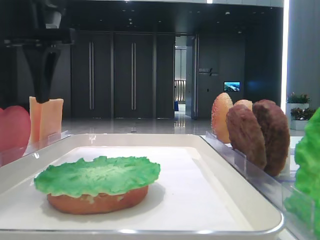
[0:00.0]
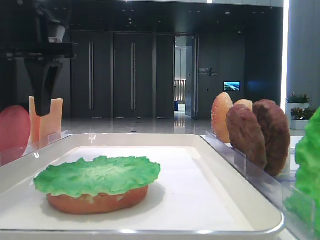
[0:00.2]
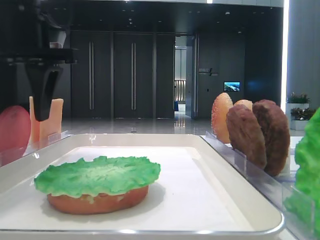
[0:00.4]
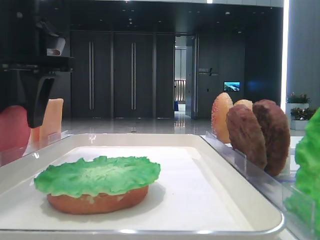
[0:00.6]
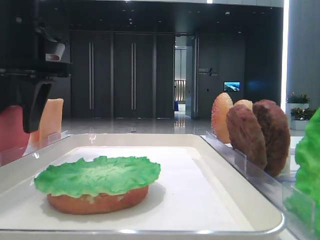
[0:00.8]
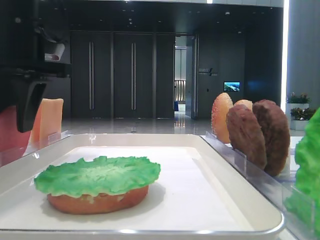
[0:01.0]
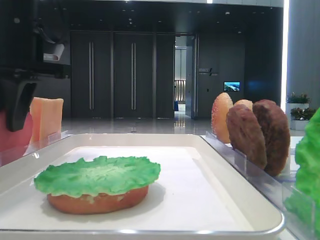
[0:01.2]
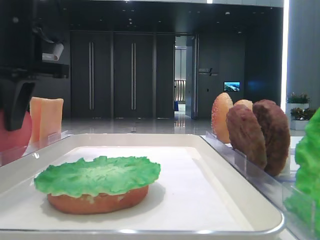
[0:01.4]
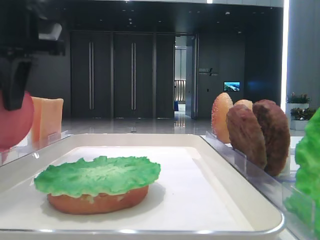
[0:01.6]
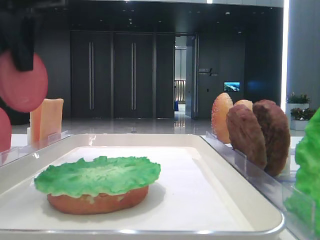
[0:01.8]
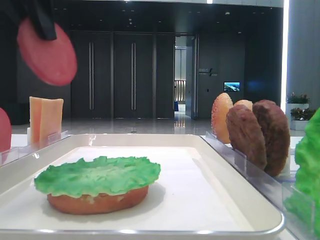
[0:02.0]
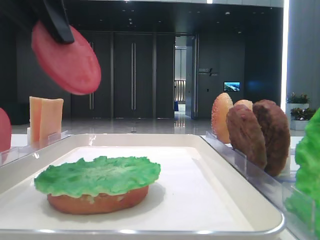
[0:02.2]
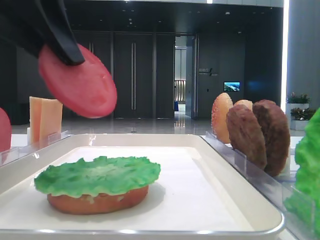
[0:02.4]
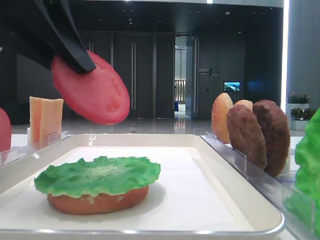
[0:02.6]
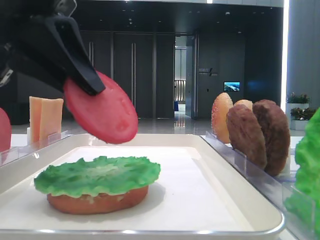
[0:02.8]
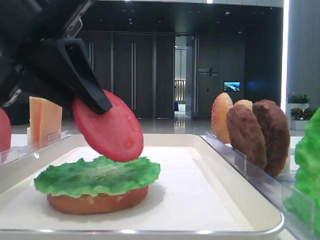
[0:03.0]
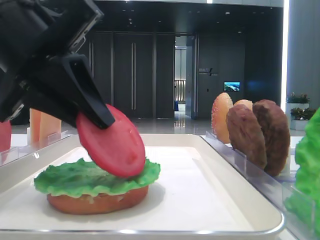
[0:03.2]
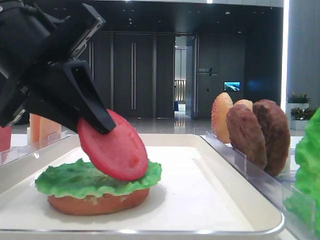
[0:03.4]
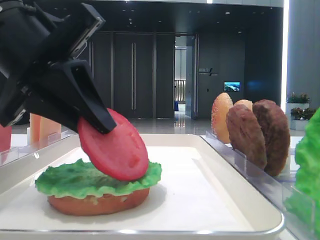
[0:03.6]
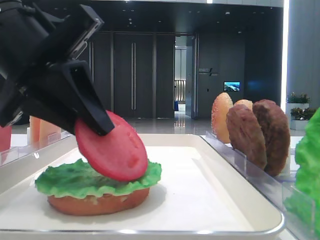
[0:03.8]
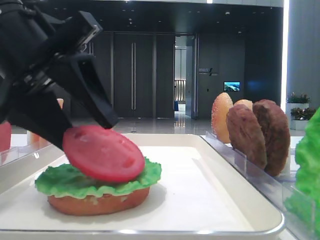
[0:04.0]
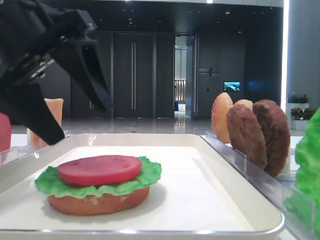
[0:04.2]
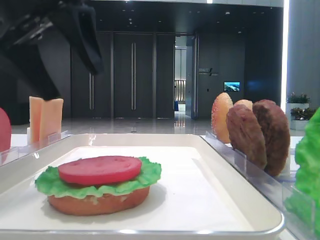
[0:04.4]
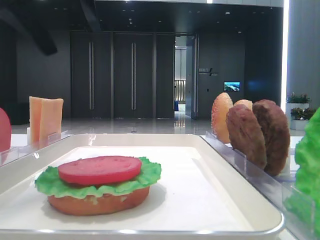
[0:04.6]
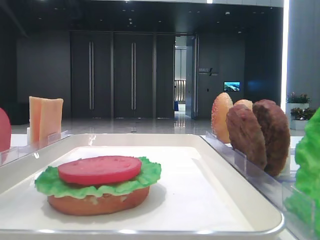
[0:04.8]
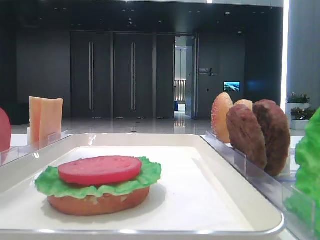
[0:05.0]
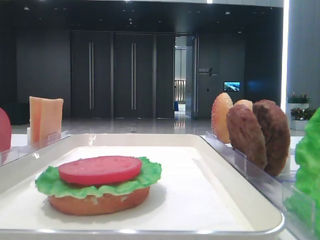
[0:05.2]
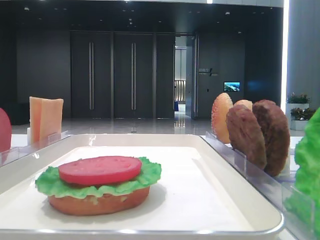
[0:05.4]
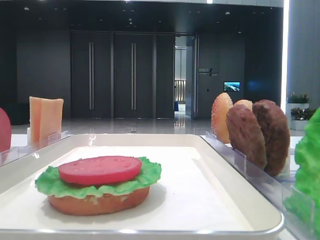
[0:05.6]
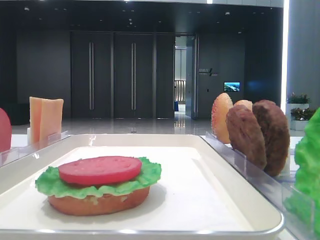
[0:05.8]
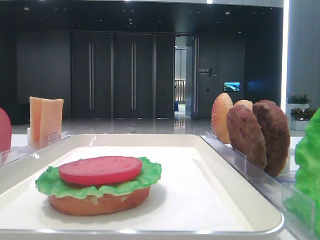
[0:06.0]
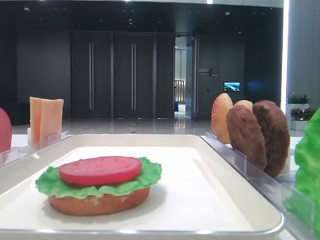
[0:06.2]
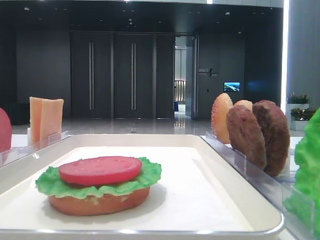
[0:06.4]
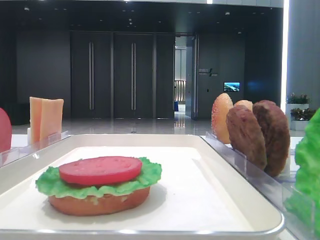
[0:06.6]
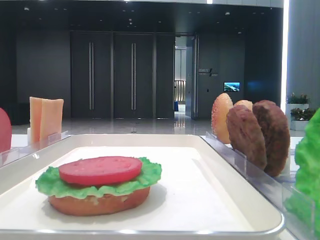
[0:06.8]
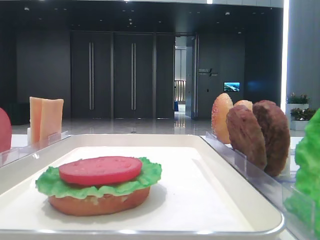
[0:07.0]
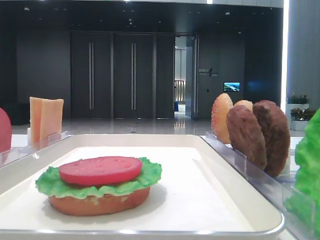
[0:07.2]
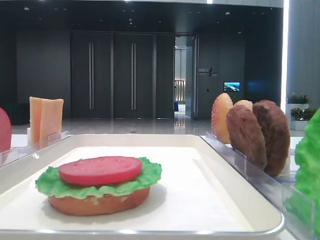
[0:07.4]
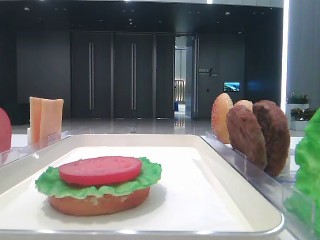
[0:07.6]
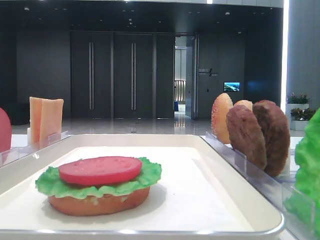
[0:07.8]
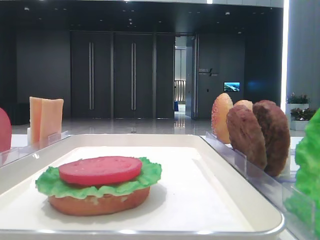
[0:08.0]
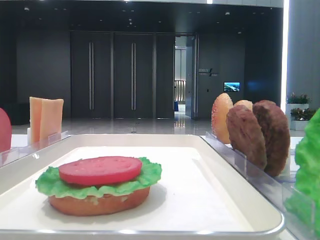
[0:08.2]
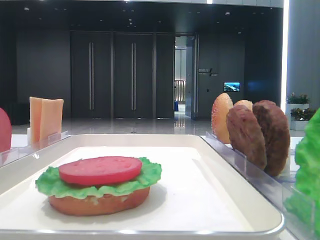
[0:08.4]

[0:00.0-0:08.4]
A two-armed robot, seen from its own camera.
Step, 0:01.6 to 0:04.2: Place the tomato slice on the lettuce leaf with the left hand.
0:00.0 to 0:01.4: The left gripper closes its fingers.
0:01.4 to 0:02.8: The left gripper moves backward, approximately 10 cm.
0:02.8 to 0:04.2: The left gripper opens its fingers.
0:04.2 to 0:05.6: The left gripper heads to the left and upward, covering roughly 20 cm.
0:07.0 to 0:08.4: The two grippers keep their place.
